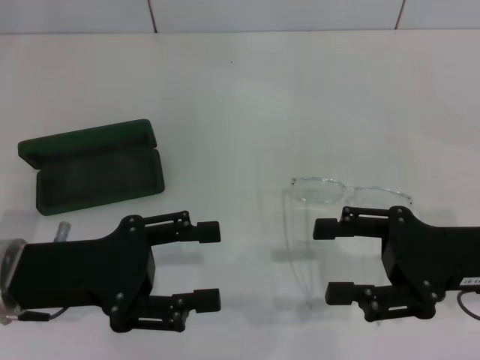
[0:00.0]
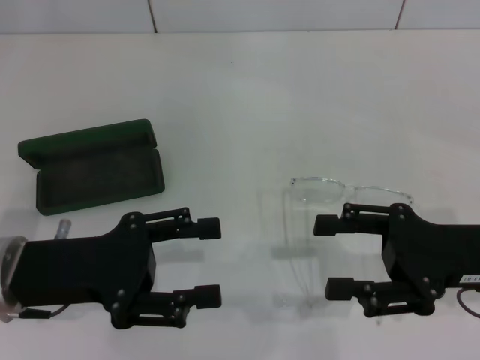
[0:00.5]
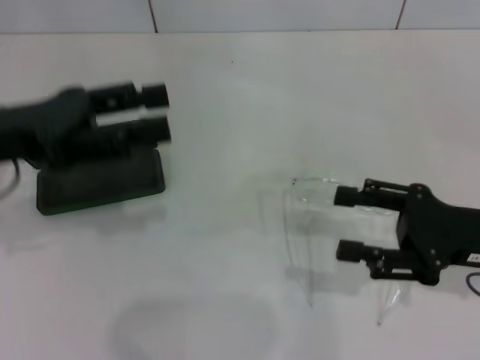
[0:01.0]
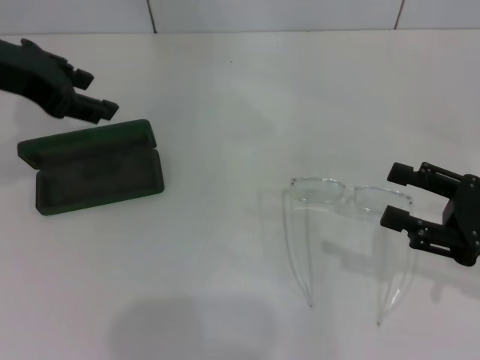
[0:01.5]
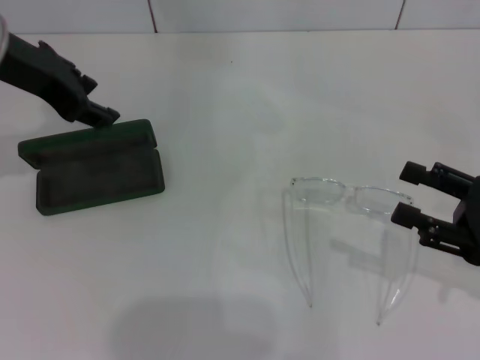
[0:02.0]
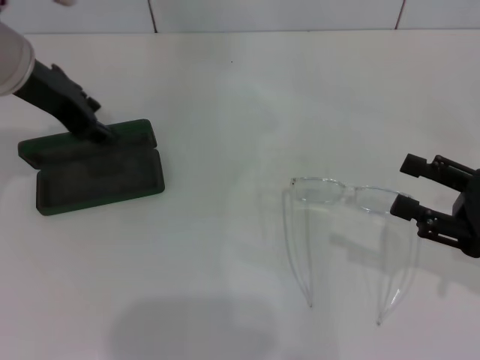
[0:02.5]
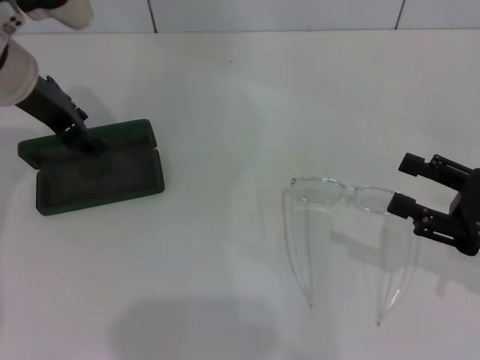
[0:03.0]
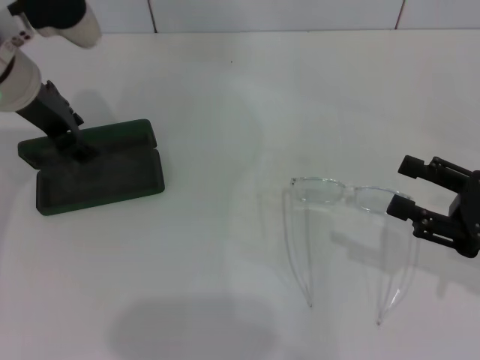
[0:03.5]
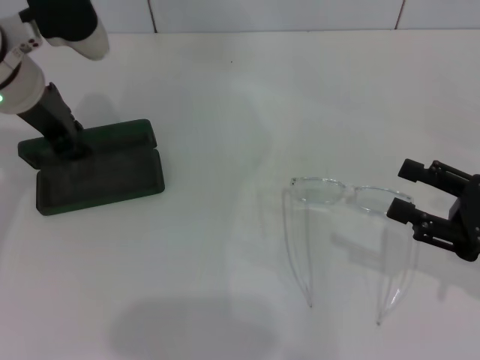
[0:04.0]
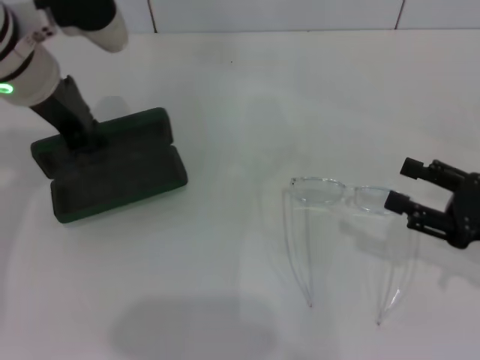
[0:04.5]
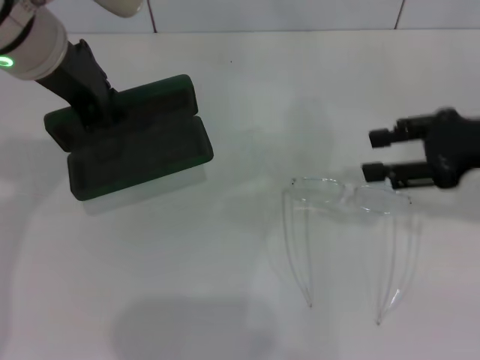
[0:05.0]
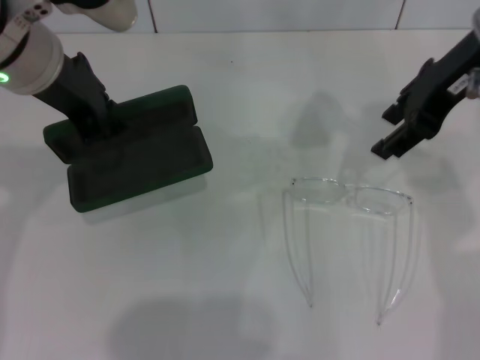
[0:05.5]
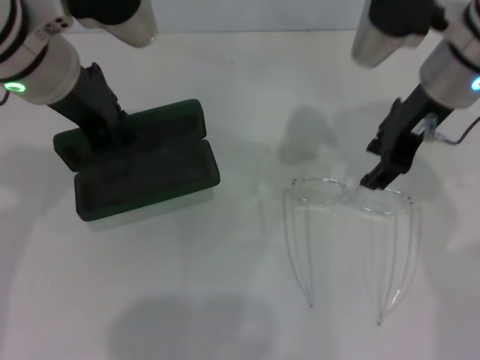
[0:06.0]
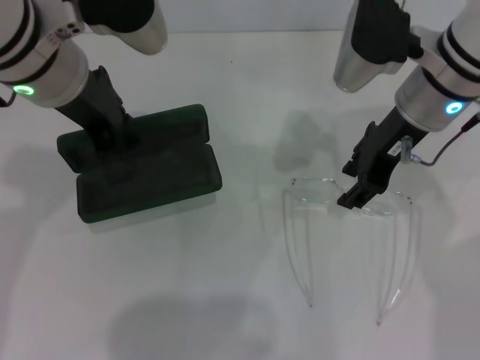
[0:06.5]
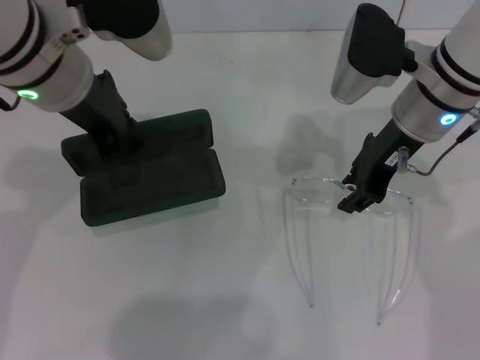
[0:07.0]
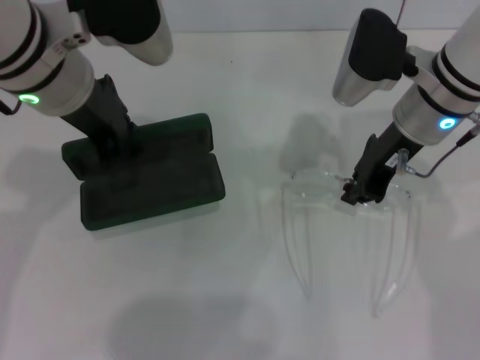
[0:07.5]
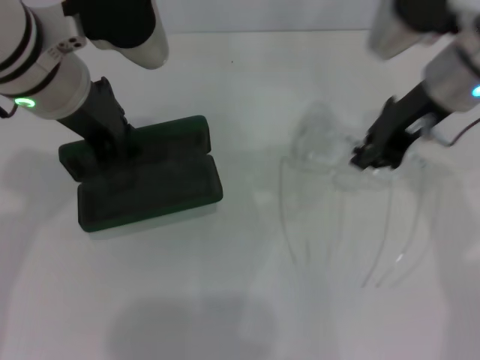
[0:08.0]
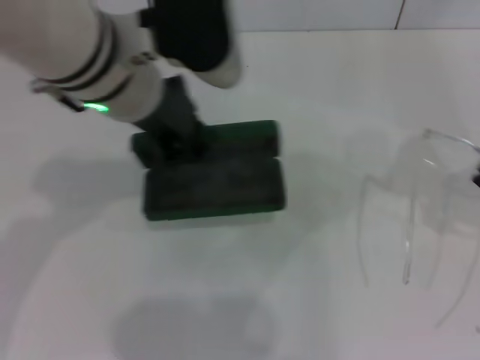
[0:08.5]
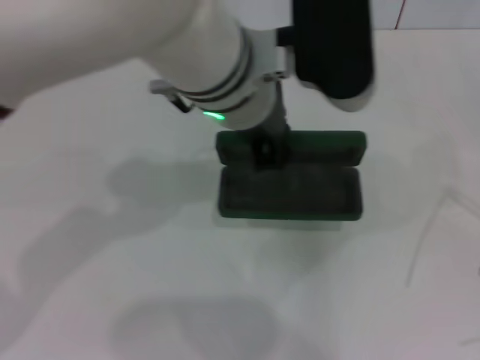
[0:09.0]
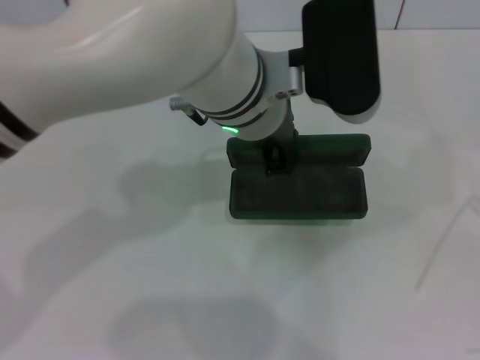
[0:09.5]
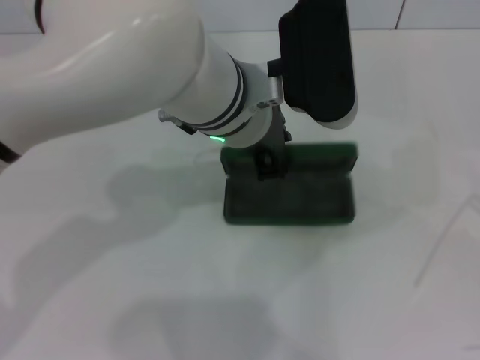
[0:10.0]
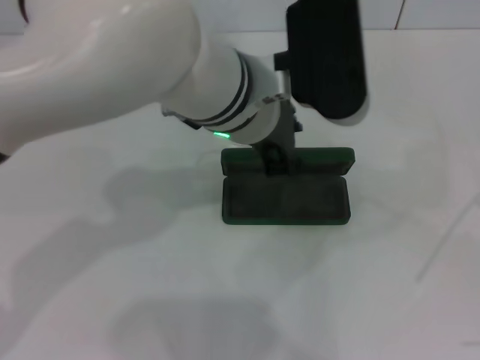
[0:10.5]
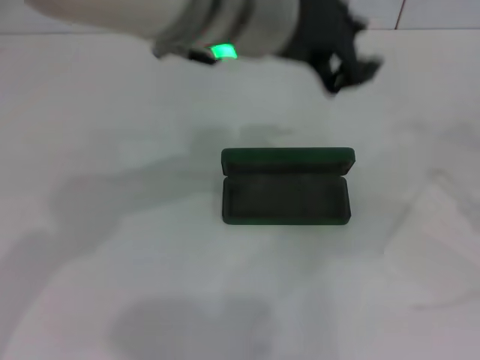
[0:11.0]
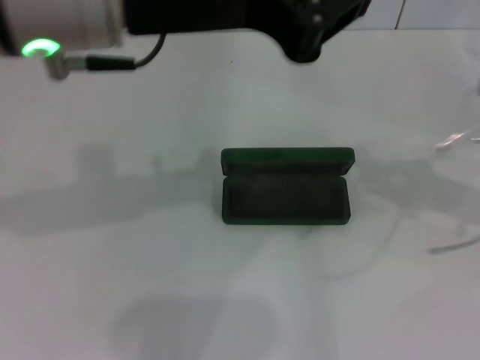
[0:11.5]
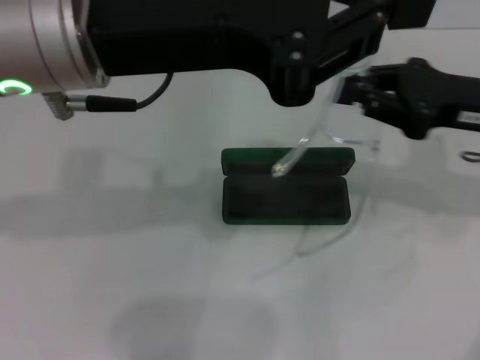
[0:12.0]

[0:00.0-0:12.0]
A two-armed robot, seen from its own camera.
Step, 0:00.0 to 0:03.5: Grab the glasses case with your left hand.
Step, 0:04.5 to 0:10.0: Place the glasses case in the center of the table with your left hand.
Step, 0:10.5 to 0:11.0: Grab the eyeglass frame with your right hand.
0:00.0 to 0:02.0: The left gripper moves upward and forward, roughly 20 cm; the right gripper moves to the right, about 5 cm.
0:02.0 to 0:04.0: The left gripper goes some 5 cm downward.
0:04.0 to 0:06.0: The right gripper heads forward, to the left and upward, covering some 25 cm. The left gripper heads upward and to the right, covering approximately 10 cm.
0:06.0 to 0:08.0: The right gripper closes its fingers.
0:08.0 to 0:10.0: The right gripper goes some 30 cm to the right and backward. The left gripper shifts approximately 15 cm to the right.
0:10.0 to 0:12.0: The left gripper goes some 15 cm to the left, upward and backward, while the right gripper is displaced to the left and forward by approximately 20 cm.

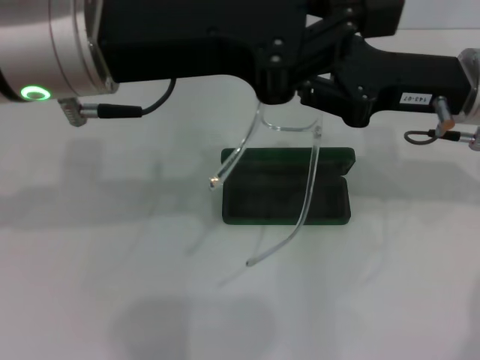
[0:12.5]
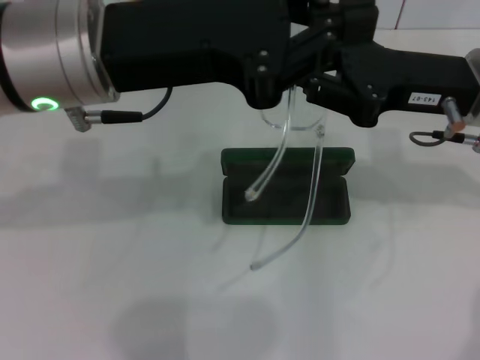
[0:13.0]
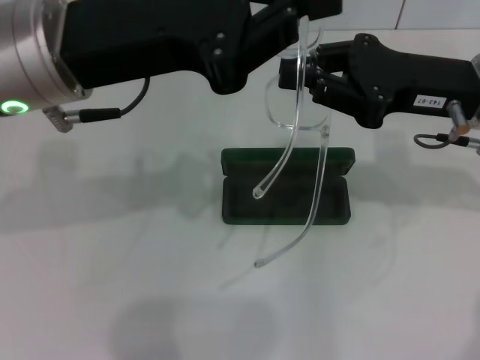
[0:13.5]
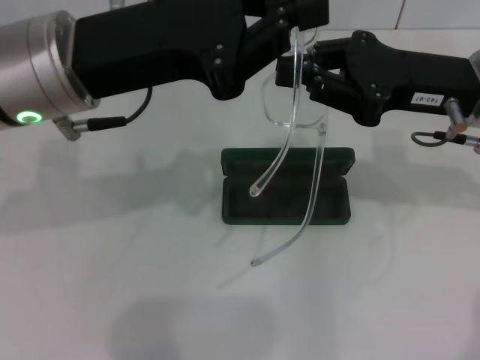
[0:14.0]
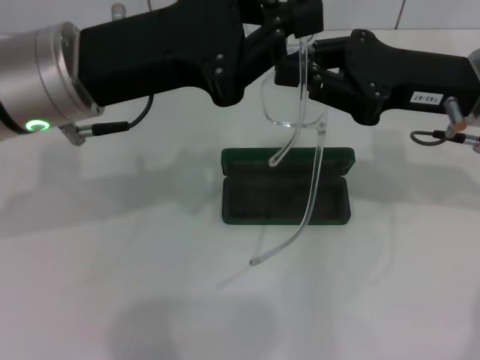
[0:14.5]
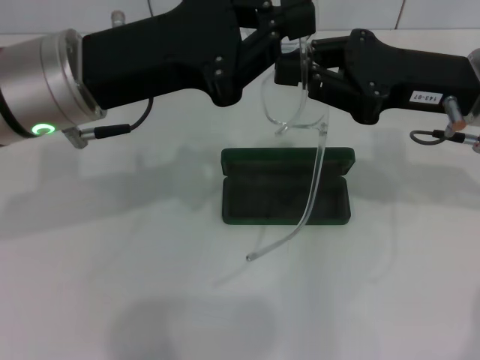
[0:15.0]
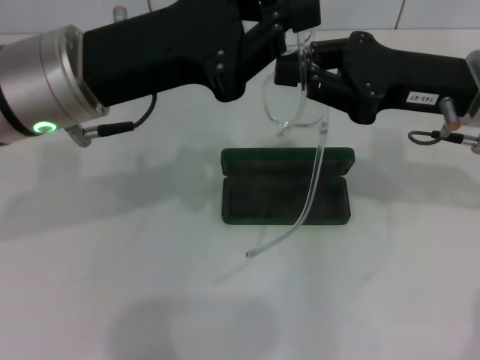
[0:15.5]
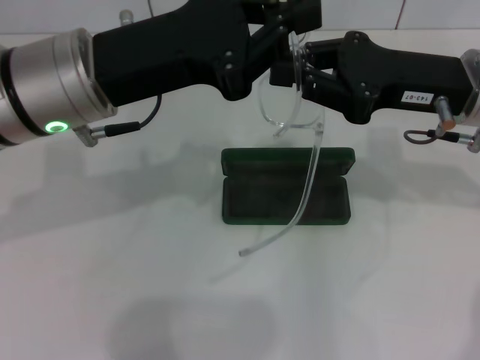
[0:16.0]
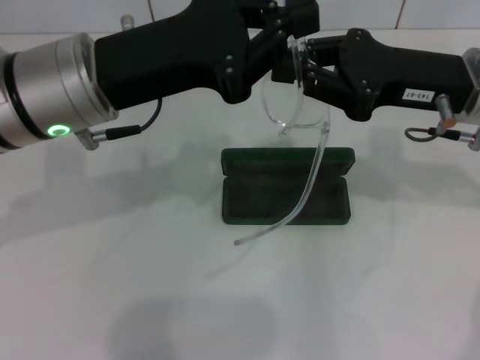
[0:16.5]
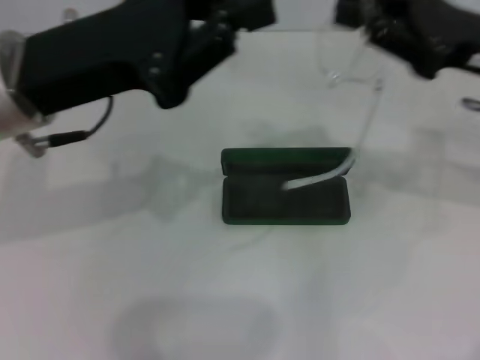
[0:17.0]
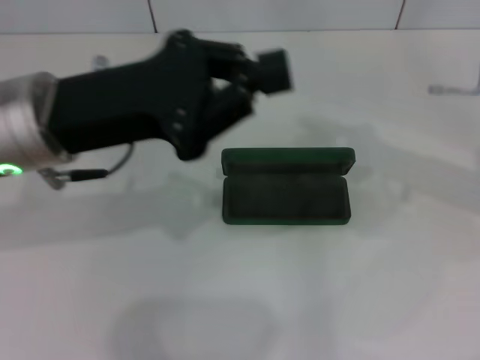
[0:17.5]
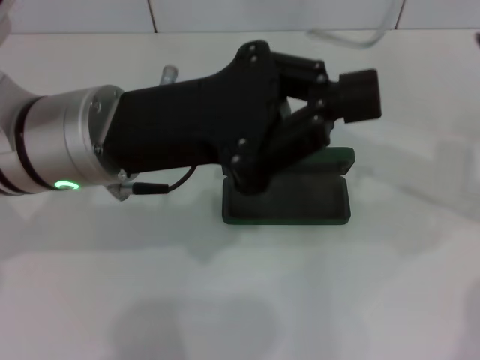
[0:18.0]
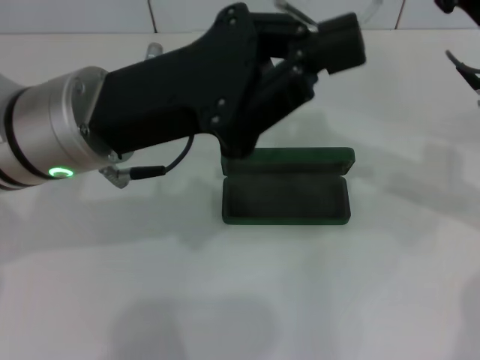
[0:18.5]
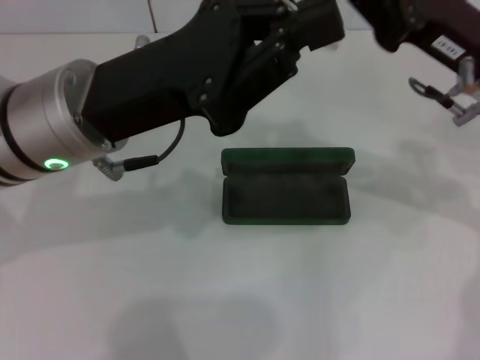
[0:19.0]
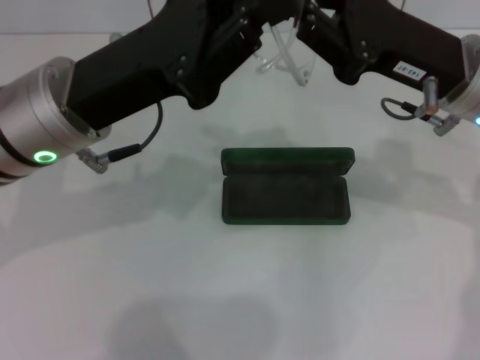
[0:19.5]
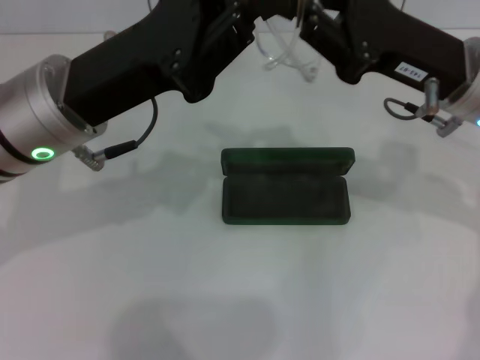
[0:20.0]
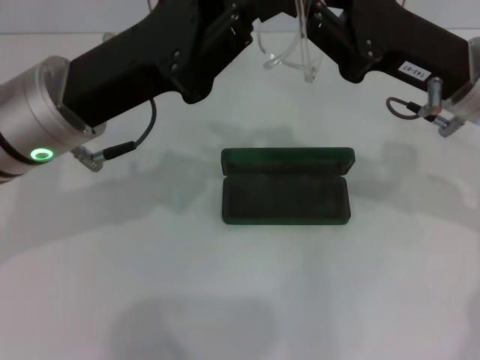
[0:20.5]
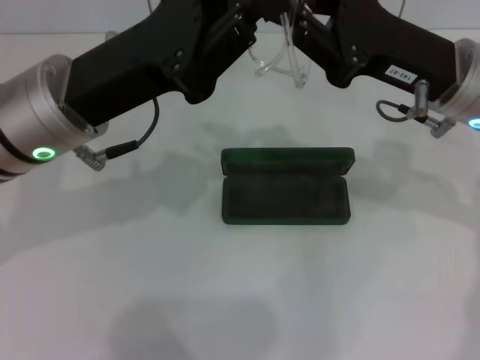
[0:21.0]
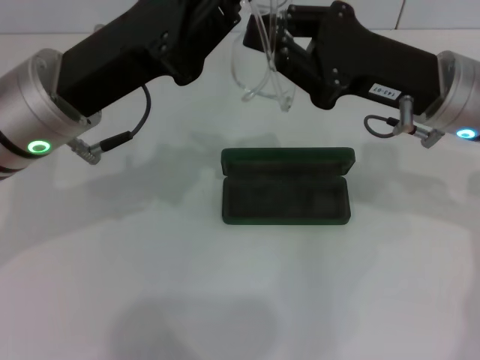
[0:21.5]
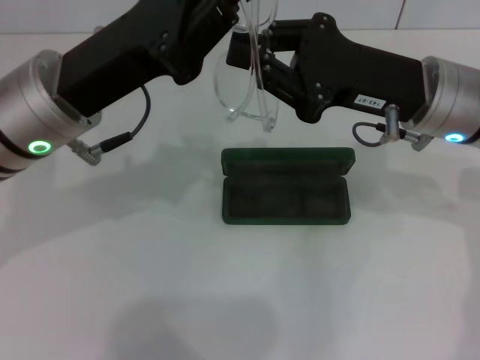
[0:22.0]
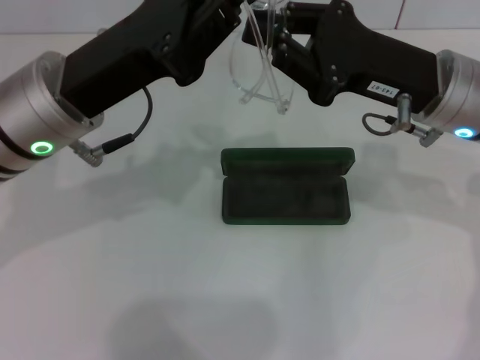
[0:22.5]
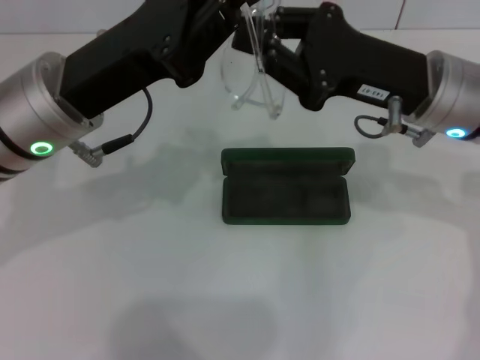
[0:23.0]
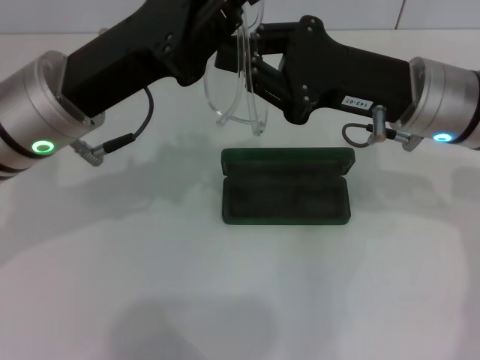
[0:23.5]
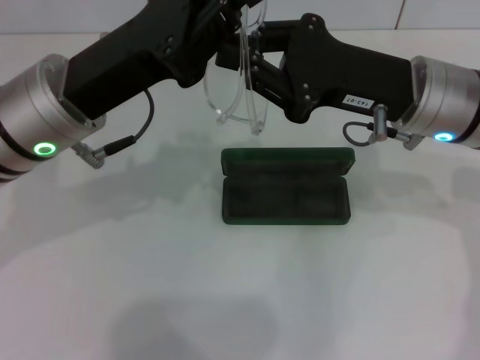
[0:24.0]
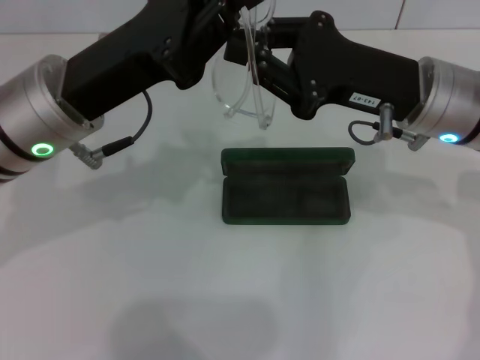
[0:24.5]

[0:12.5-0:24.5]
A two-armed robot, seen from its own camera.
0:12.5 to 0:14.5: The left gripper travels downward by some 5 cm.
0:14.5 to 0:16.5: There are only small adjustments of the grippers.
0:16.5 to 0:18.5: The right gripper goes to the right and returns, some 10 cm each way.
0:20.5 to 0:24.5: The grippers move only a little.

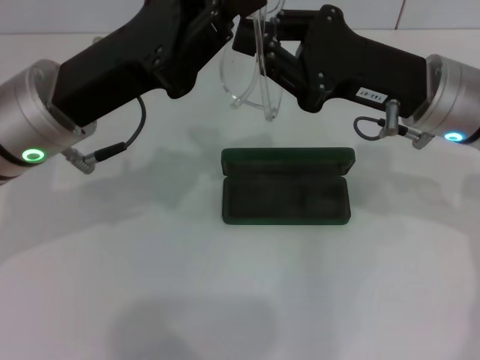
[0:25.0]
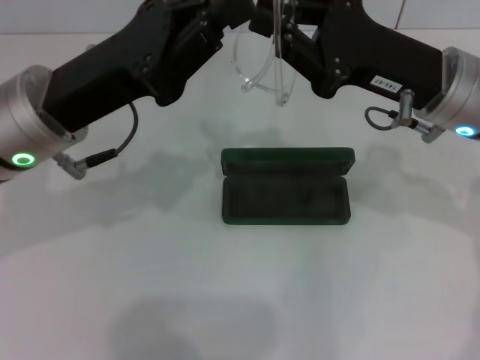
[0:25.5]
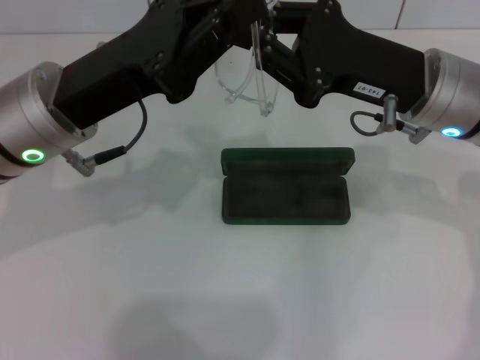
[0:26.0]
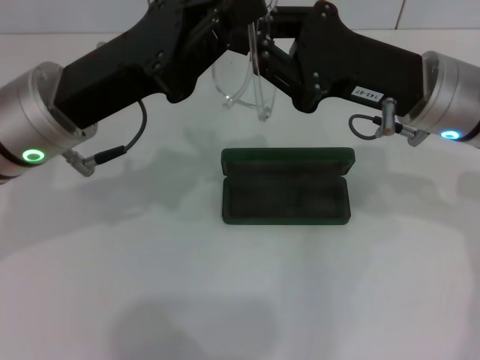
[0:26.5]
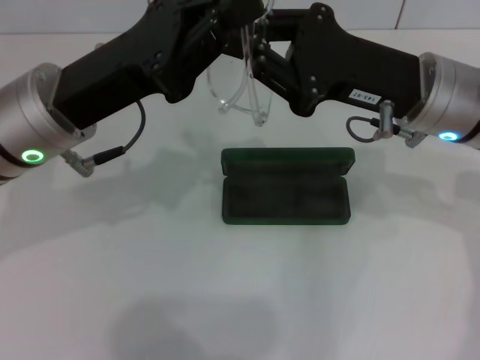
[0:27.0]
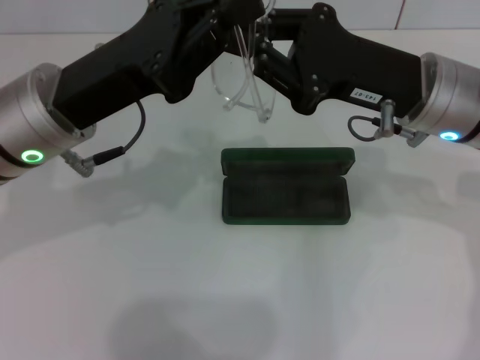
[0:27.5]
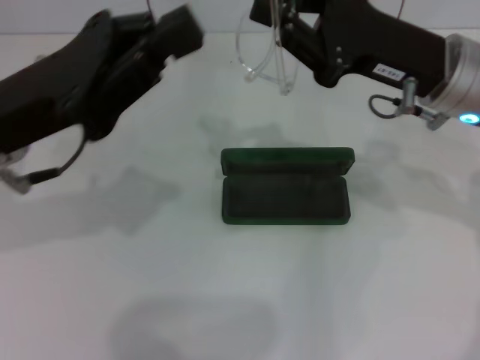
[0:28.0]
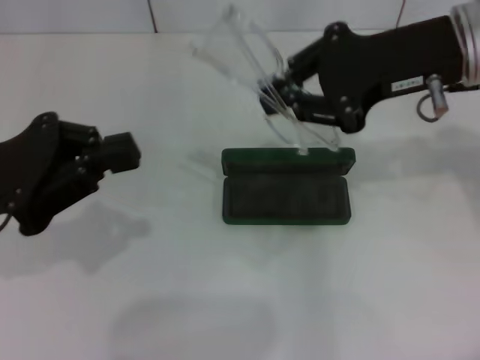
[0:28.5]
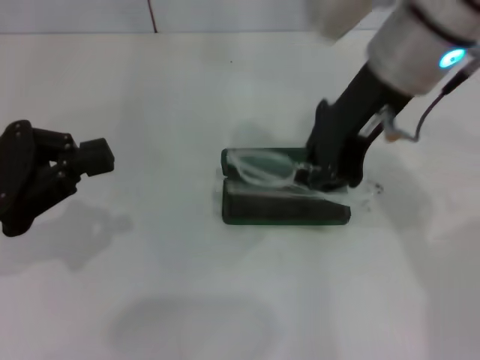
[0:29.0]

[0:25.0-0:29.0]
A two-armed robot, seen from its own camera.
0:25.0 to 0:27.0: The two grippers keep their place.
0:27.0 to 0:29.0: The left gripper goes some 15 cm to the left and backward, while the right gripper travels upward and to the left by some 10 cm.
